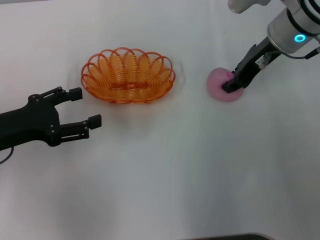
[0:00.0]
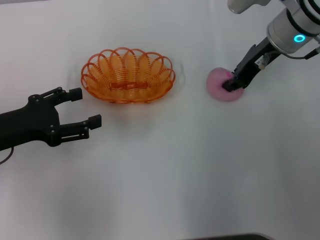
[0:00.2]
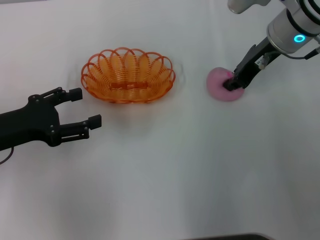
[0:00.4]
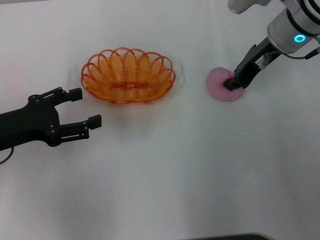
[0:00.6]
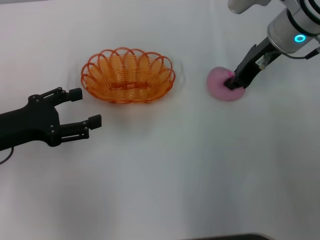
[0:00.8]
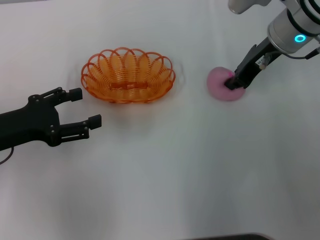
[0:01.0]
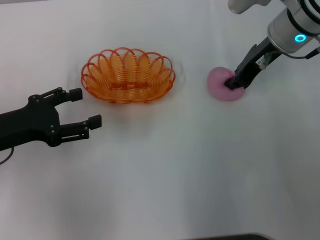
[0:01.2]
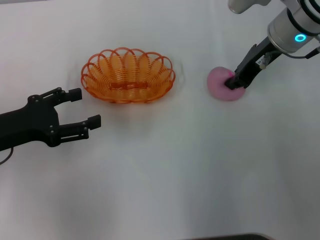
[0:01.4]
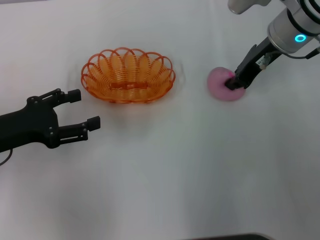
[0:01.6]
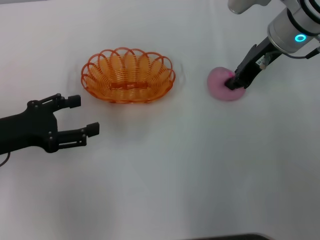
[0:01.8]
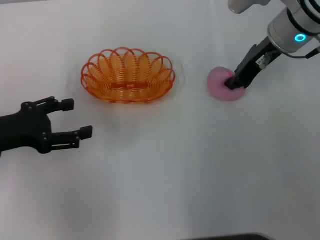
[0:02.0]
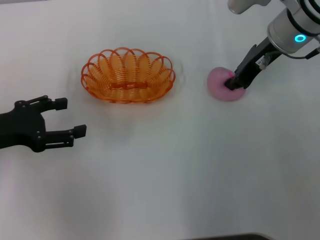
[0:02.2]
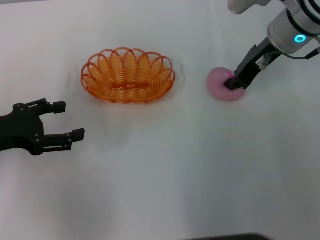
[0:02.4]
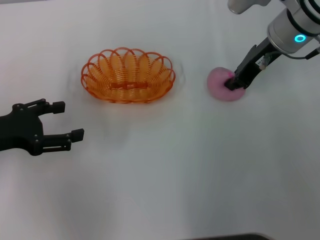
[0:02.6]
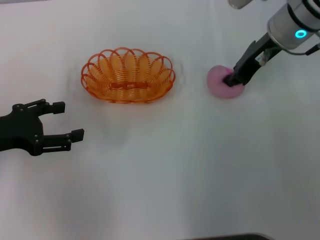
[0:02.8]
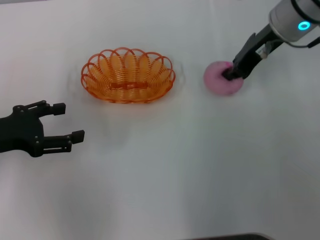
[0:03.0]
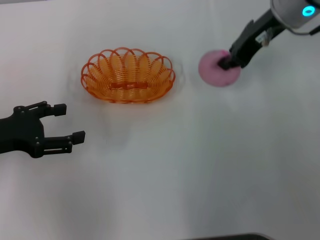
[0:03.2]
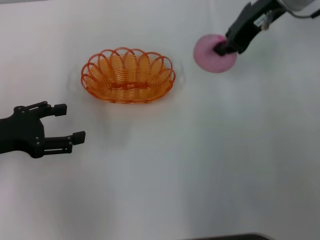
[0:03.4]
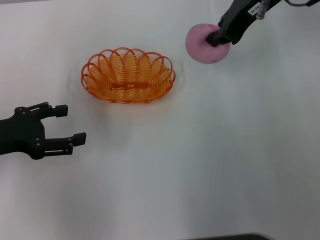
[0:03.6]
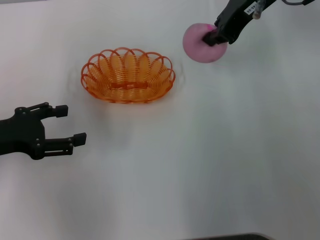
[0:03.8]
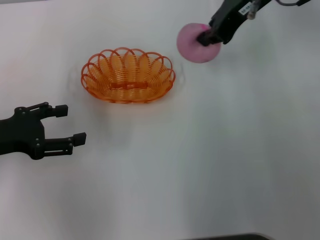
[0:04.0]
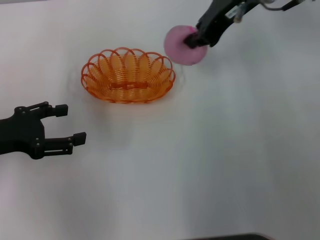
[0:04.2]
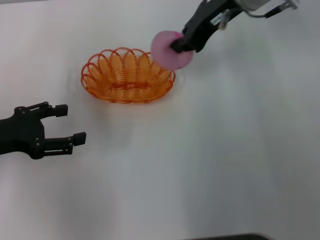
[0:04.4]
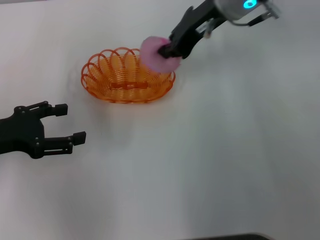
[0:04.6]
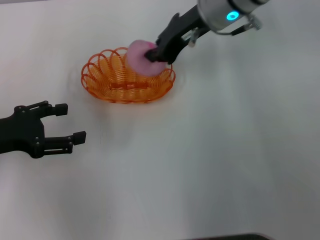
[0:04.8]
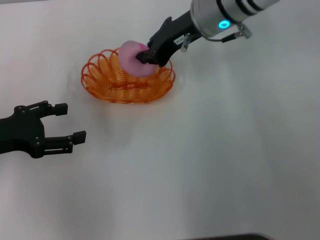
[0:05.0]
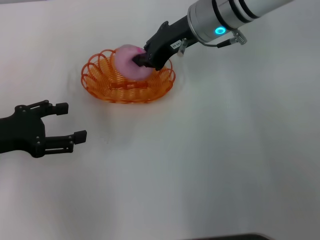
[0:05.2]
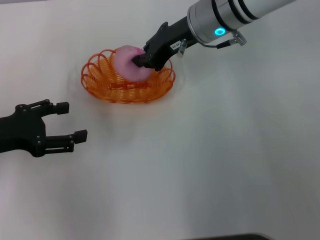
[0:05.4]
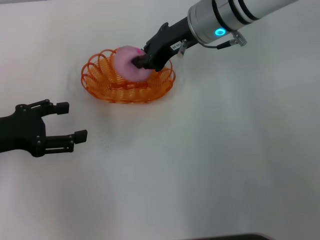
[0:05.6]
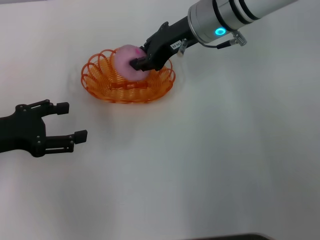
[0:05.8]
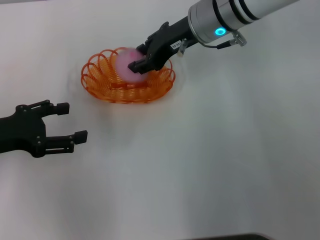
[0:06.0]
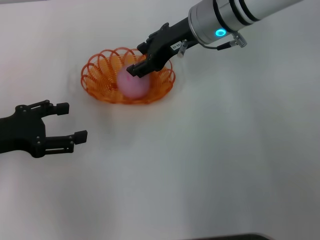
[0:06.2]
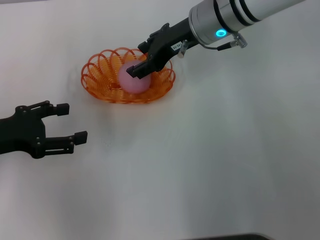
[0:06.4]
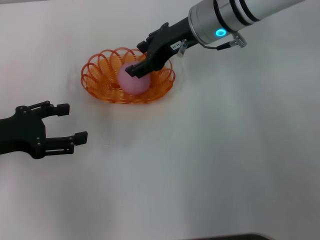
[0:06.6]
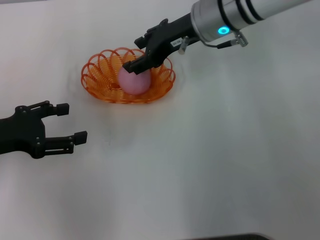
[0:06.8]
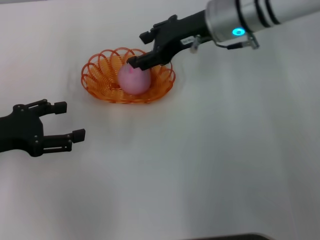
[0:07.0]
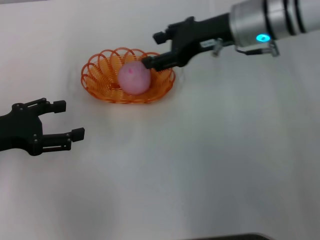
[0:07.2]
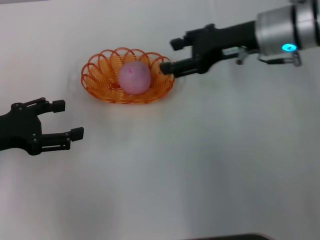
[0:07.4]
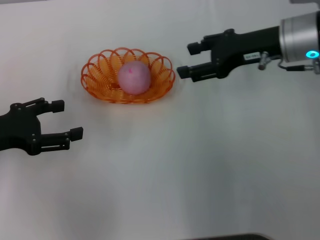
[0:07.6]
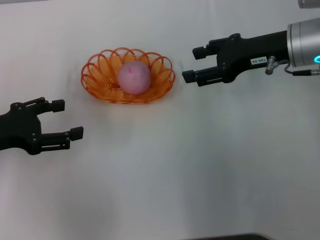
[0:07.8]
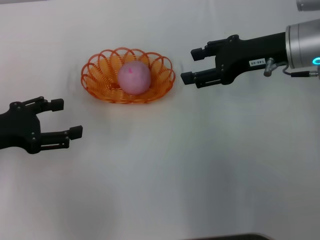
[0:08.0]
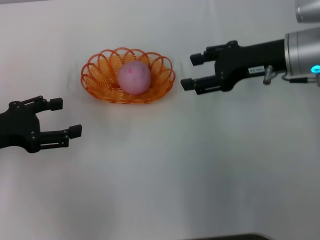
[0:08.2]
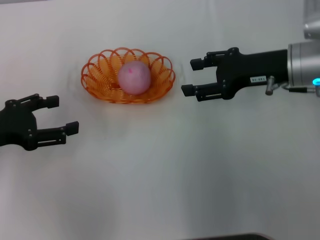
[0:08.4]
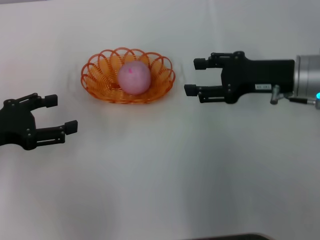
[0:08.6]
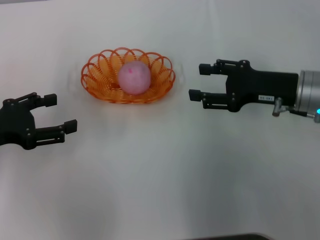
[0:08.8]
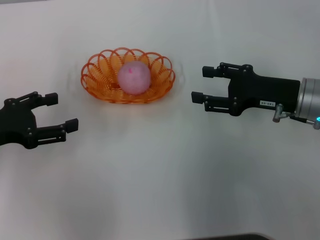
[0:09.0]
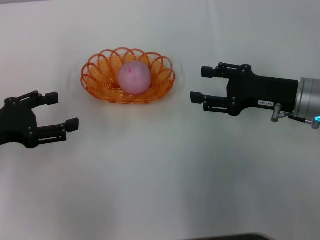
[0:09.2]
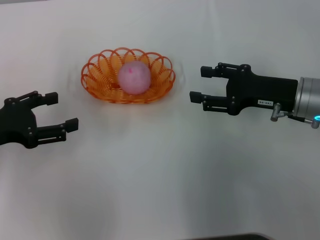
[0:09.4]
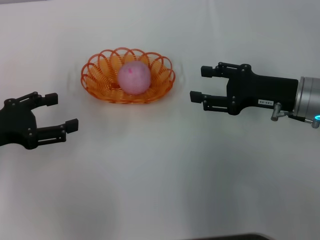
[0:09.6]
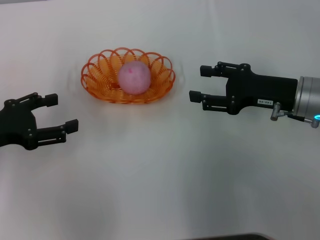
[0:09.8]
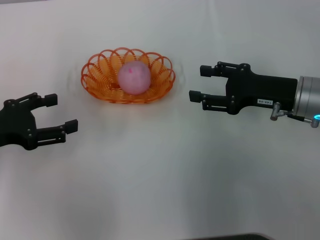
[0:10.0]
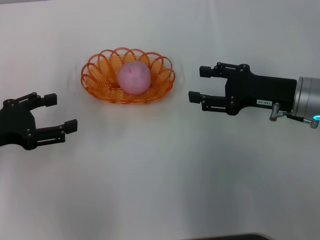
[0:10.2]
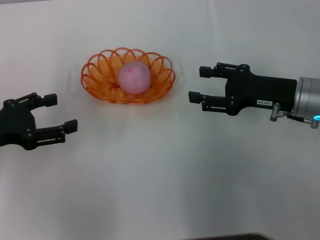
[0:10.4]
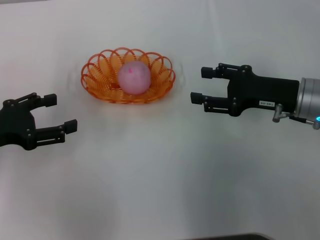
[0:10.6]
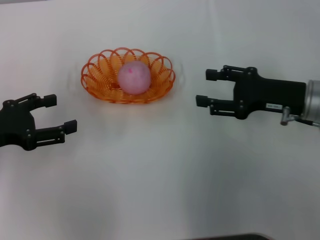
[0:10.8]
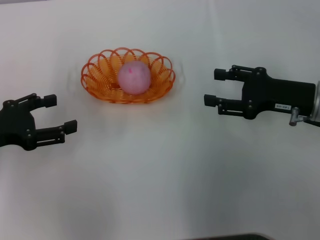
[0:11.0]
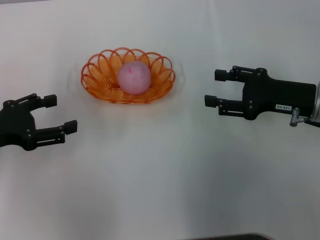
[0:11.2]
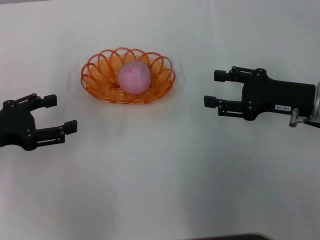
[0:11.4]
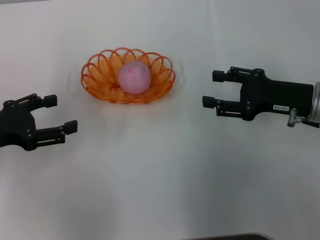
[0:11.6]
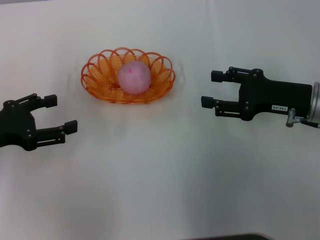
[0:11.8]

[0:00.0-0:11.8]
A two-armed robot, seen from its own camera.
Step, 0:00.0 to 0:03.4: Pick up the peach with the right gripper.
Step, 0:03.6 to 0:06.8: Place the peach into the basket with the right gripper.
0:01.4 to 0:03.0: The grippers move only a little.
0:03.0 to 0:04.4: The right gripper shifts some 5 cm to the left.
0:04.4 to 0:06.0: The right gripper travels downward by about 5 cm.
0:06.0 to 0:07.4: The right gripper shifts roughly 10 cm to the right, and opens up.
0:07.4 to 0:08.8: The right gripper shifts some 10 cm downward, backward and to the right.
0:08.8 to 0:10.4: The two grippers keep their place.
0:10.4 to 0:11.8: The grippers move only a little.

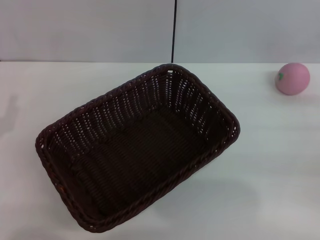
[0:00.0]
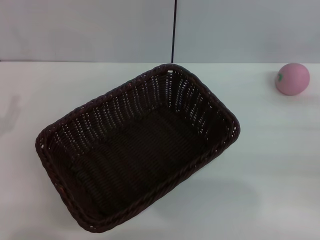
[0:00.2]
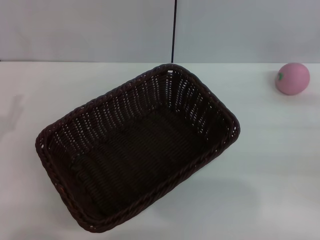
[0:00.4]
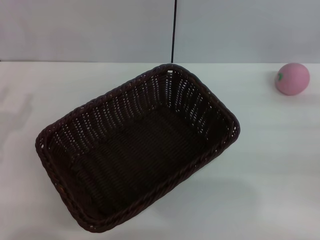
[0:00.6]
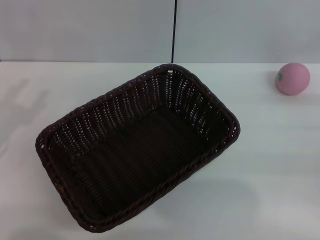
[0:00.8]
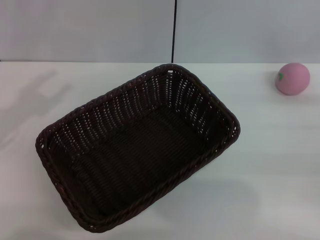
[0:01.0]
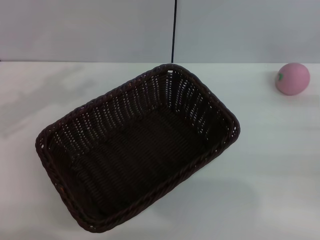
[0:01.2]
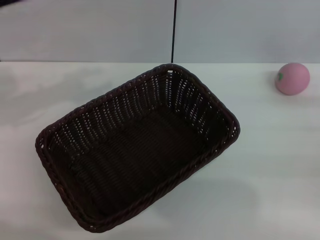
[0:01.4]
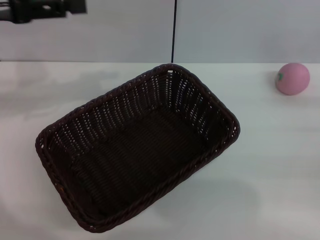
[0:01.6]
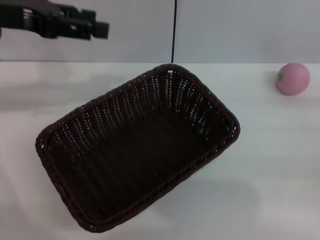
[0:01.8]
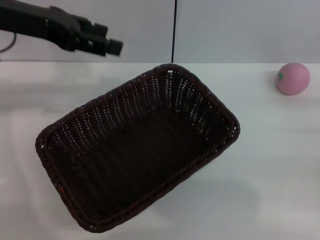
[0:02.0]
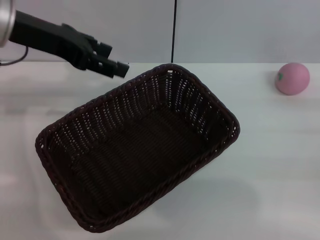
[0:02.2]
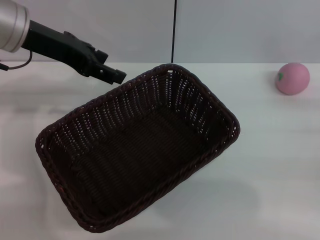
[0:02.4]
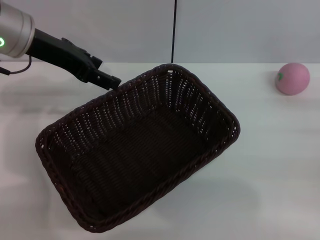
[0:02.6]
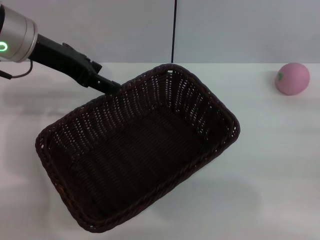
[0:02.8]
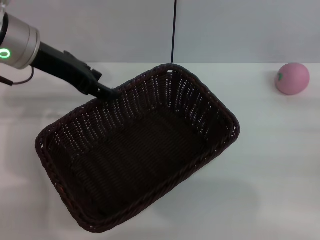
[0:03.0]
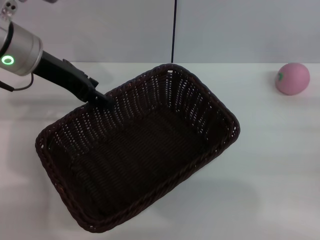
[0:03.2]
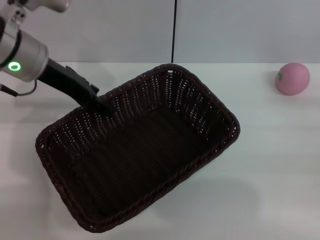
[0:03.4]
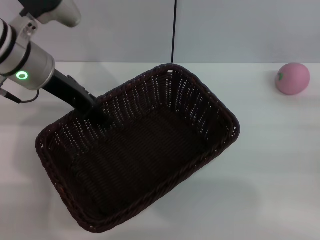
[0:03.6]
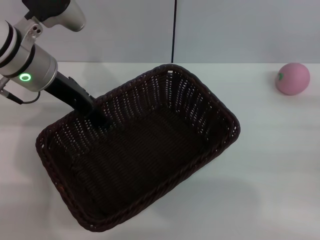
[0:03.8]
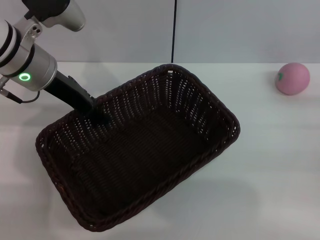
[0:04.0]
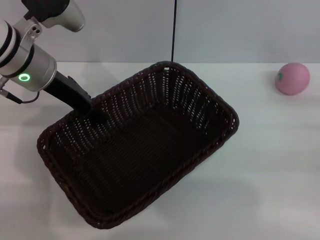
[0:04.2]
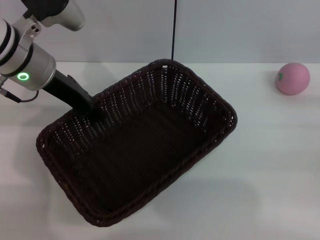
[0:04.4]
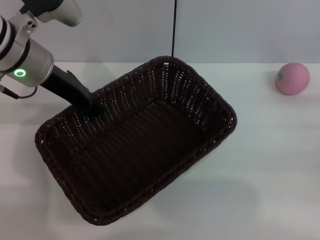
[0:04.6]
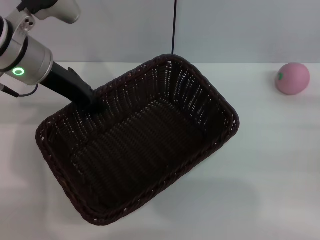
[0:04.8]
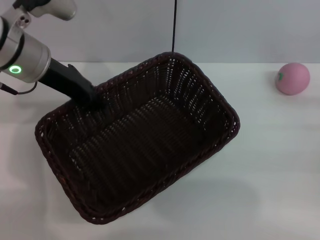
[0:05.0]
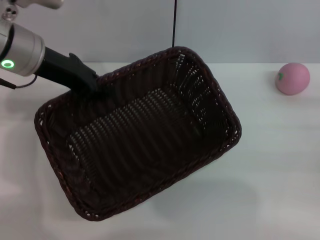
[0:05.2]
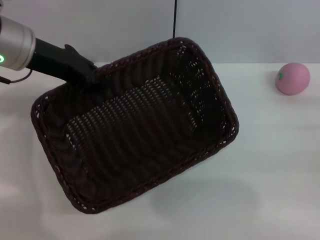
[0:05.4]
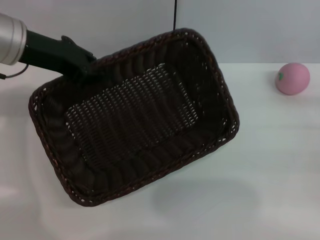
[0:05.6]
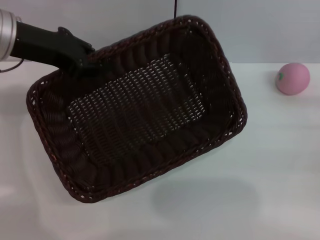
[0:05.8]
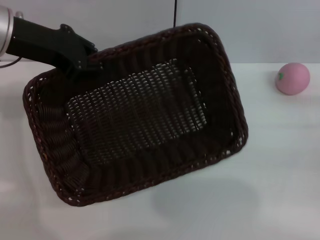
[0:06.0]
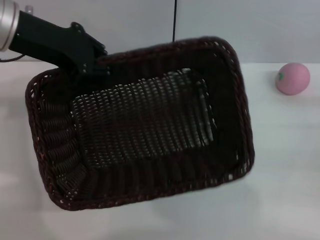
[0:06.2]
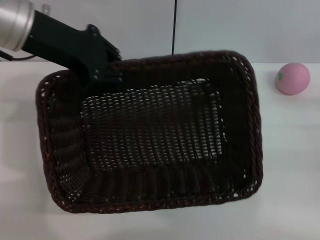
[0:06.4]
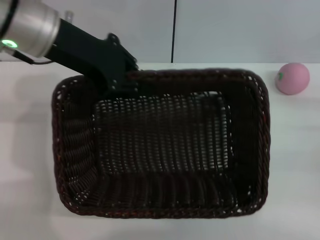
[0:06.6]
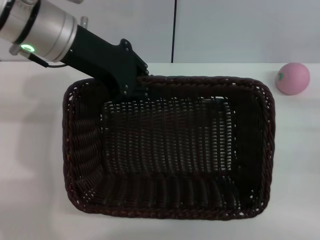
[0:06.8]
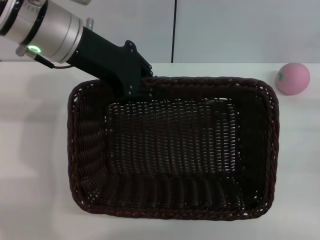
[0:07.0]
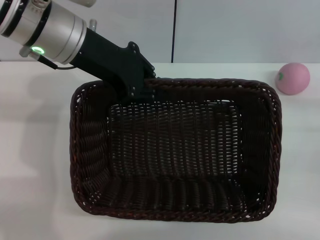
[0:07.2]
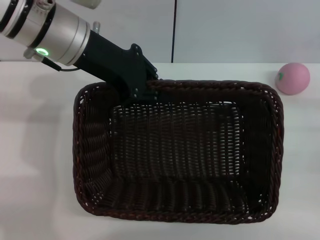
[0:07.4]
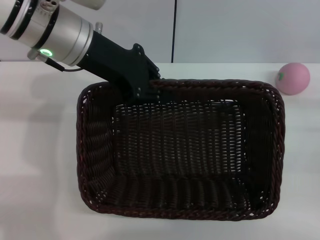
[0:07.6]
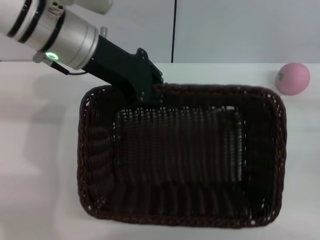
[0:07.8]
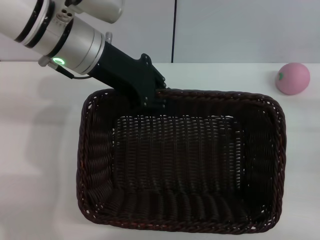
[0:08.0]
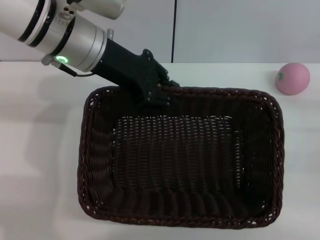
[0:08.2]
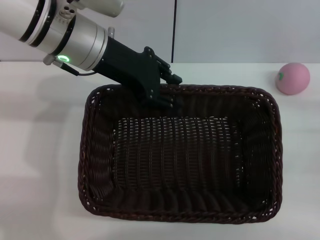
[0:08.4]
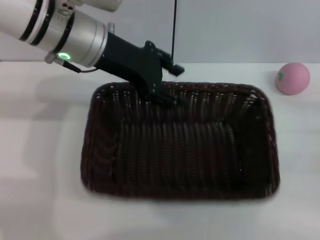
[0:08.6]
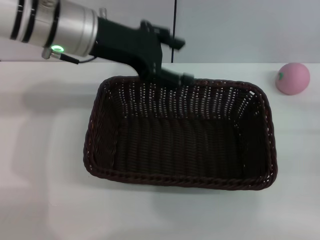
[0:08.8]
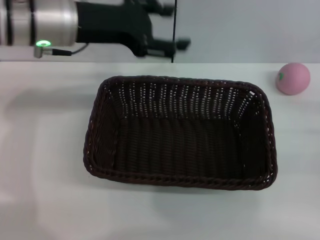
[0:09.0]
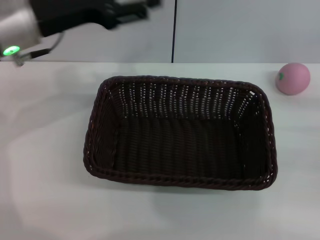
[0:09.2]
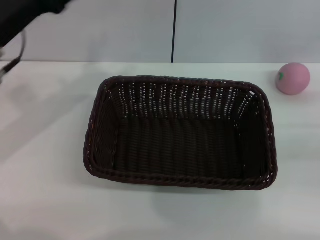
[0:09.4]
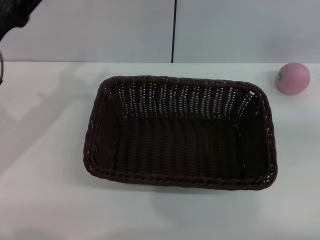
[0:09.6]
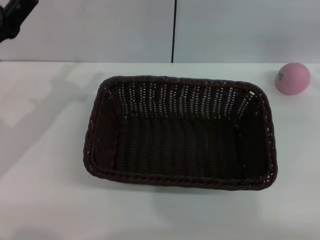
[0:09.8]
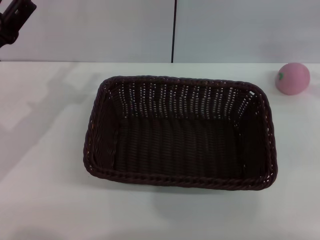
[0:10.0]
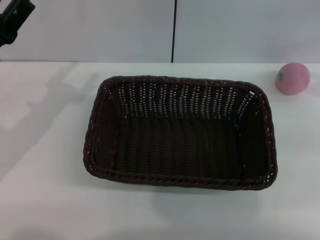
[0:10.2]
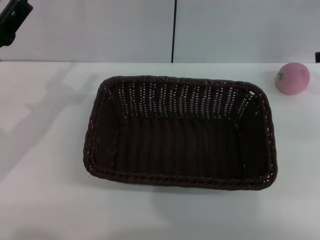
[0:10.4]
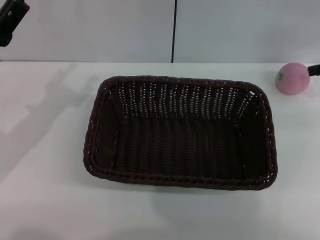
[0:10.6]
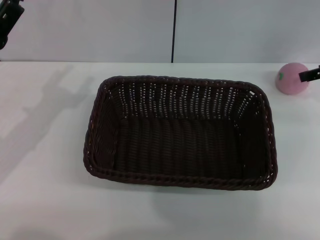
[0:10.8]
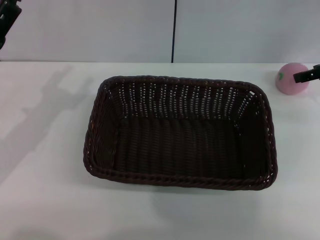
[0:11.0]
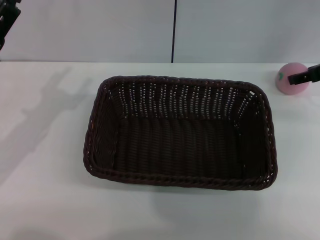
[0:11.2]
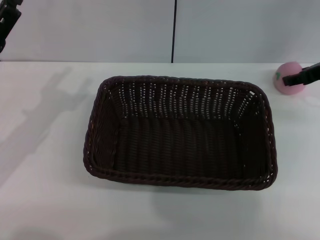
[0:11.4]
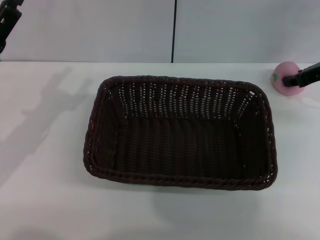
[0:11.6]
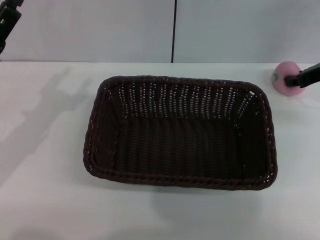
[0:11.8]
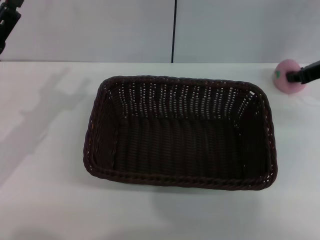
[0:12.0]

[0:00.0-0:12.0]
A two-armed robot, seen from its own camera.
Step, 0:00.0 to 0:05.4: Pick up the dark basket with the left gripper.
0:00.0 to 0:01.6: The left gripper travels upward and forward by some 20 cm, and opens its fingers.
0:01.6 to 0:03.0: The left gripper goes roughly 10 cm to the right.
0:03.0 to 0:04.4: The left gripper closes up.
0:04.4 to 0:06.0: The left gripper moves upward, some 5 cm, and closes its fingers.
0:06.0 to 0:07.6: The left gripper shifts approximately 10 cm to the right.
0:07.6 to 0:09.0: The left gripper opens its fingers.
0:09.0 to 0:10.4: The left gripper goes some 15 cm to the left, downward and backward. Meanwhile the right gripper moves upward and forward, about 20 cm, and opens its fingers.
0:10.4 to 0:12.0: The right gripper moves to the left and downward, approximately 10 cm, and closes up.
